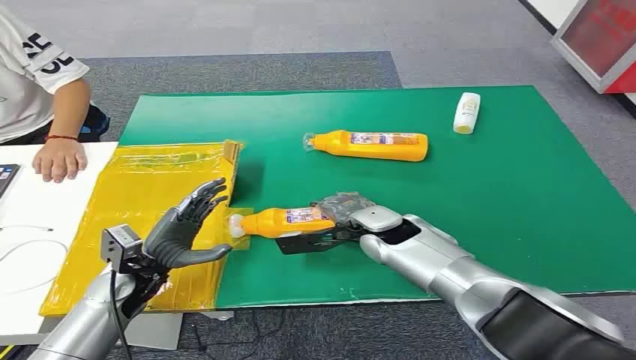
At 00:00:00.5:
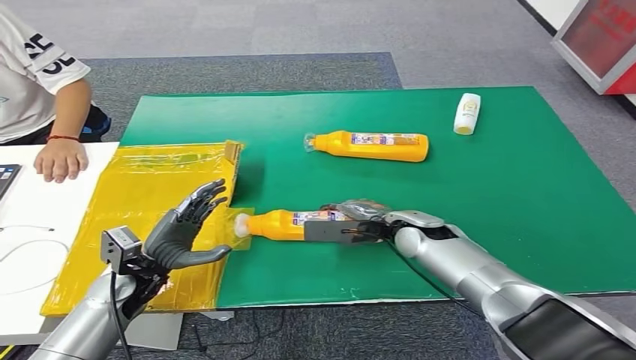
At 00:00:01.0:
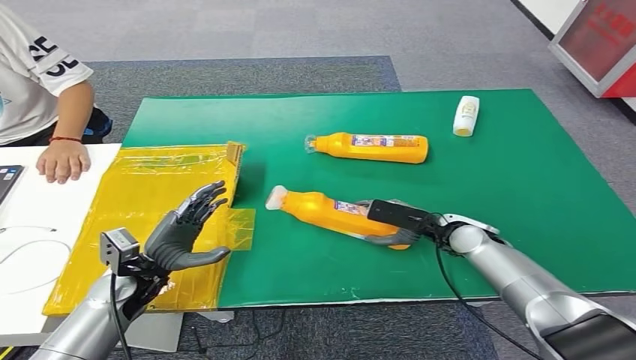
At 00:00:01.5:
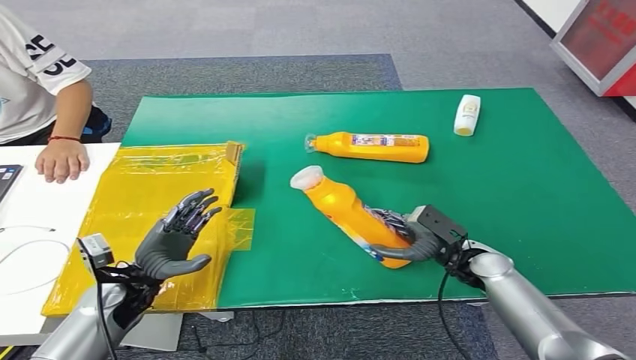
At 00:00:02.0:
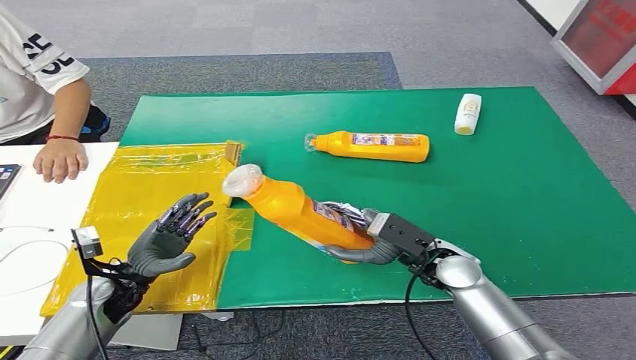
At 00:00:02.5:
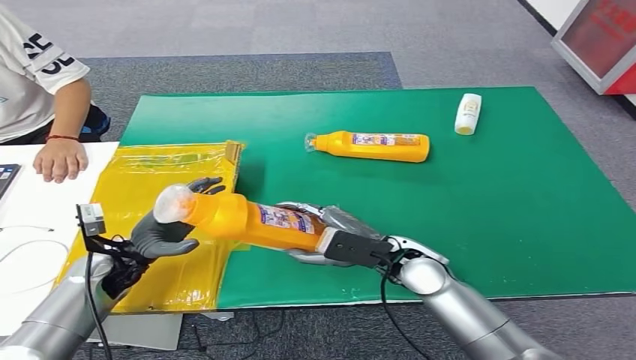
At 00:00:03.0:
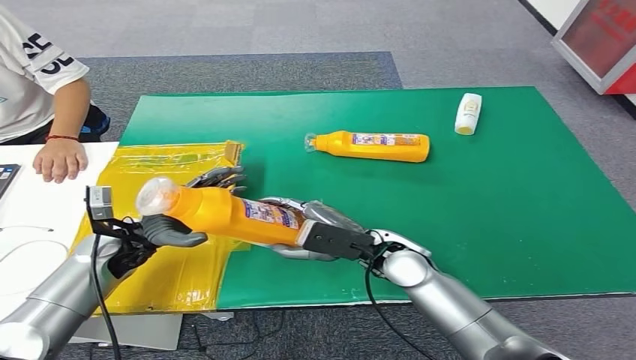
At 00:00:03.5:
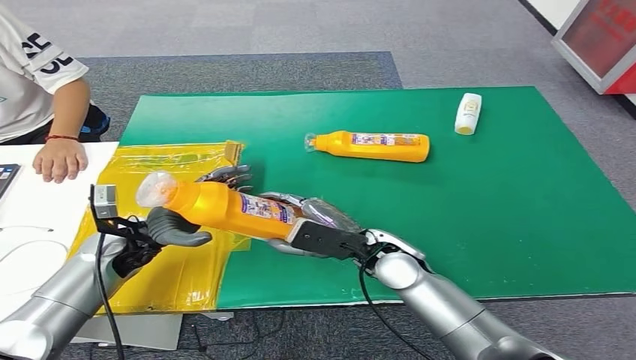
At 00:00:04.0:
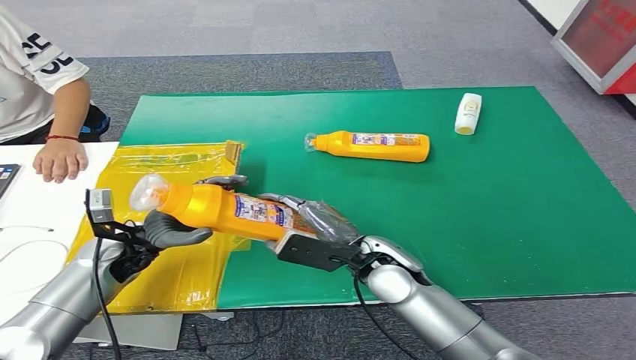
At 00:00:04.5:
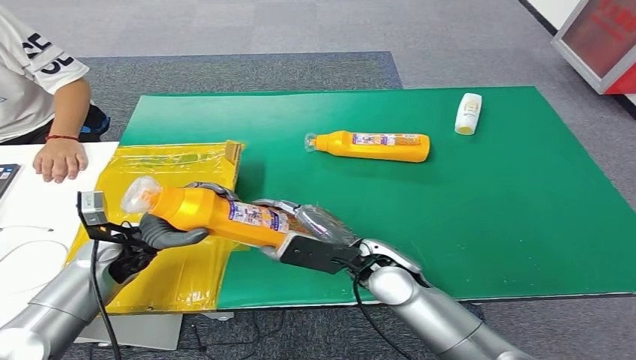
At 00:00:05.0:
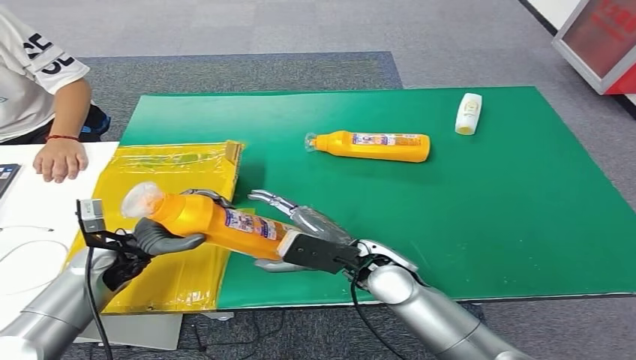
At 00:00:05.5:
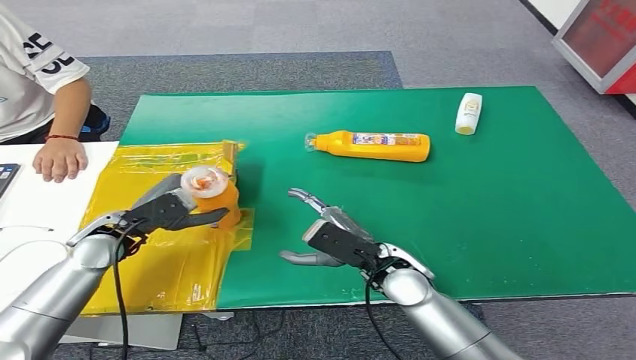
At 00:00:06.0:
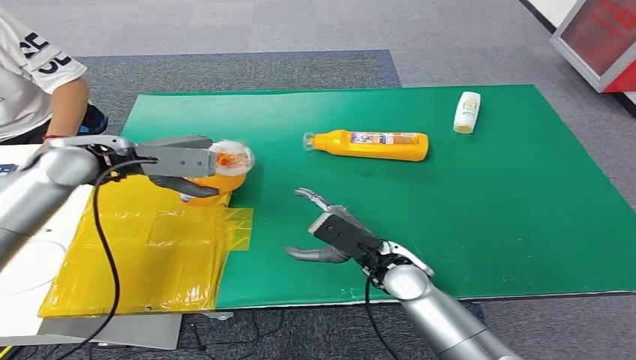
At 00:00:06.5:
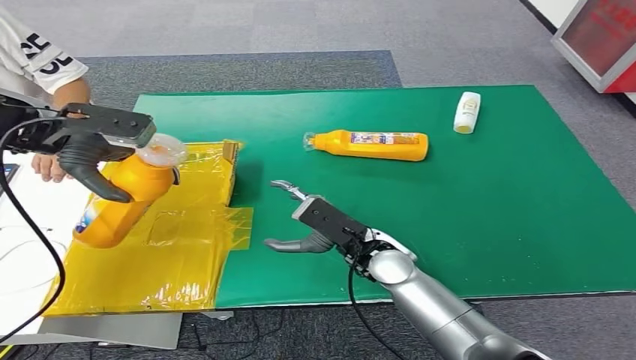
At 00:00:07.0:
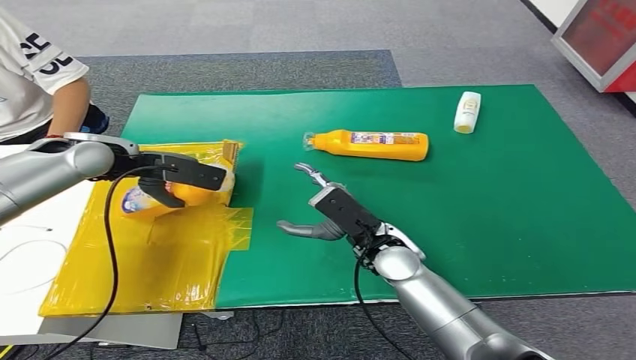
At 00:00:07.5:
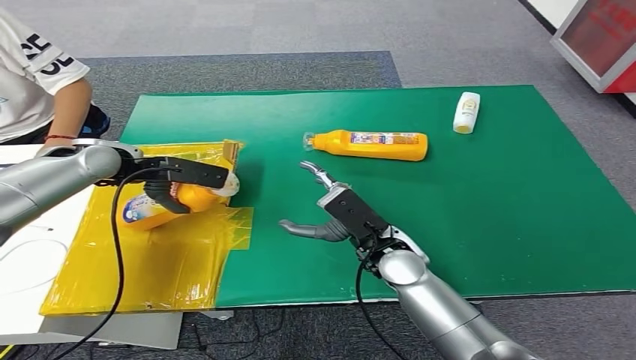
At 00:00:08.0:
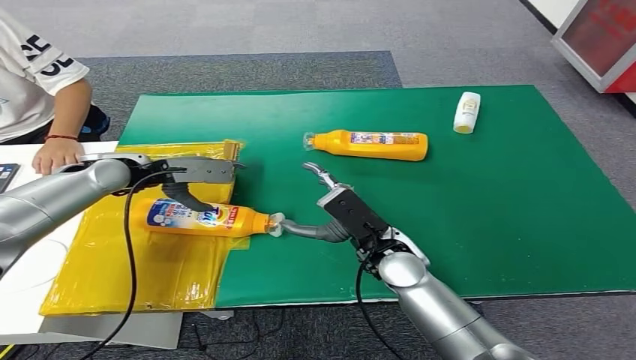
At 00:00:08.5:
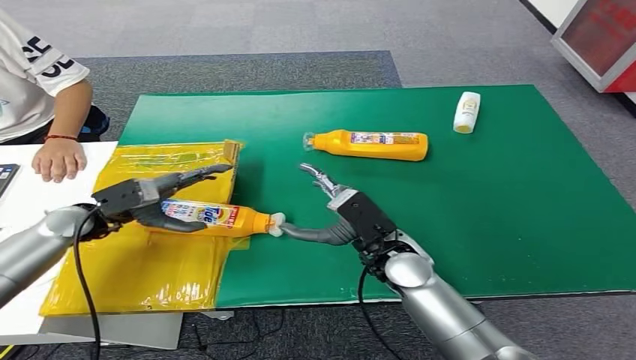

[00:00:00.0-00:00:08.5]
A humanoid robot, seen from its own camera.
Step, 00:00:00.0 to 00:00:02.0: Pick up the bottle from the table.
Step, 00:00:02.5 to 00:00:08.5: Turn the bottle to the front side.
00:00:02.0 to 00:00:04.0: The right hand goes roughly 10 cm to the left, while the left hand moves upward and forward, about 10 cm.
